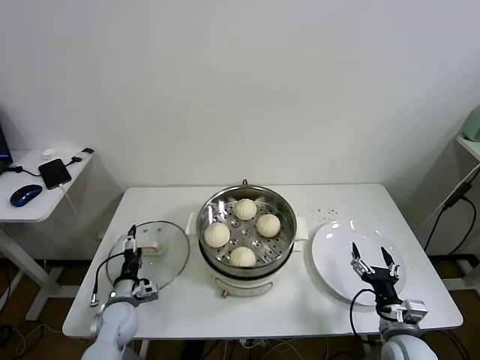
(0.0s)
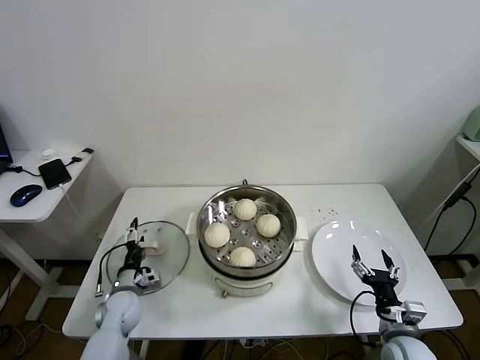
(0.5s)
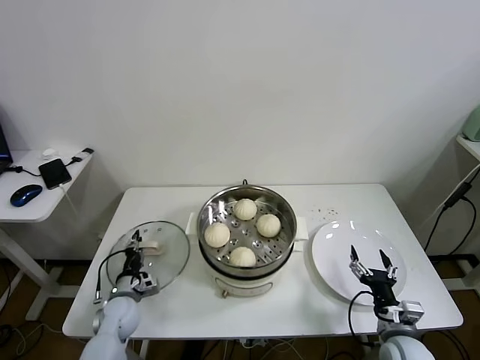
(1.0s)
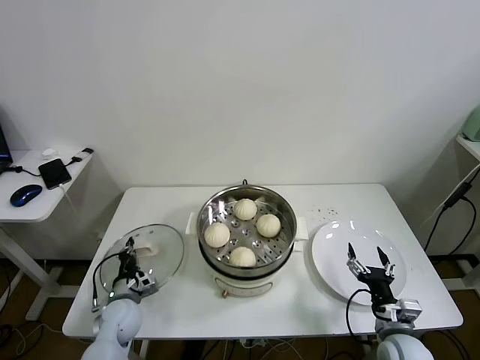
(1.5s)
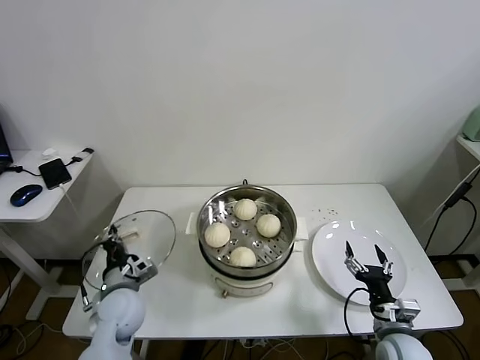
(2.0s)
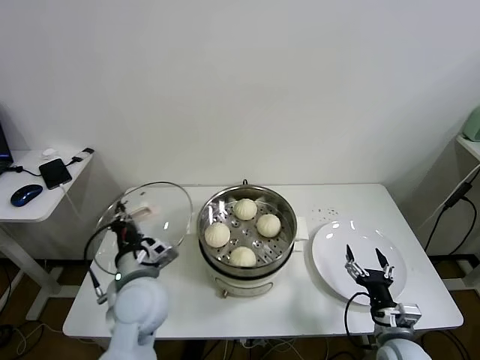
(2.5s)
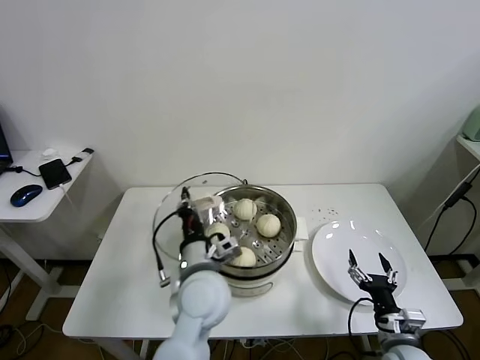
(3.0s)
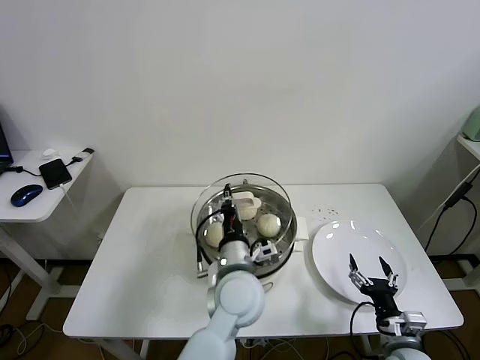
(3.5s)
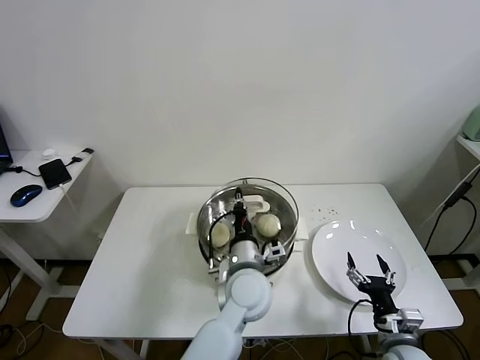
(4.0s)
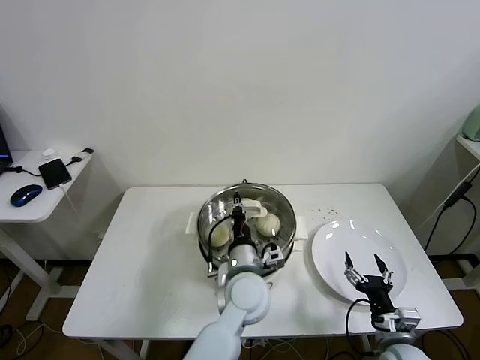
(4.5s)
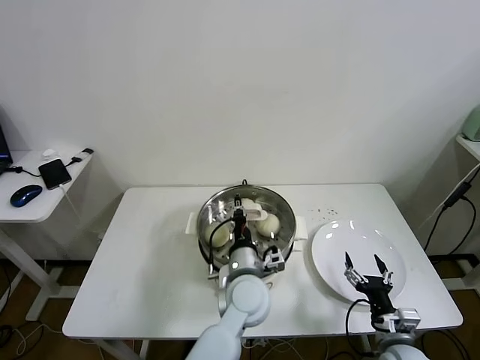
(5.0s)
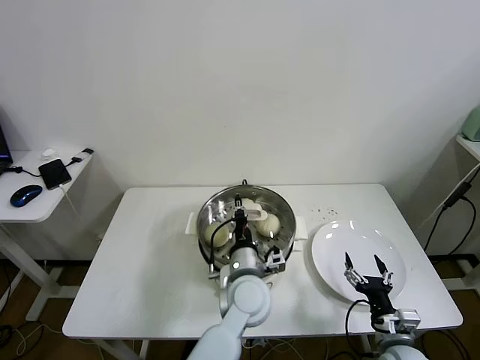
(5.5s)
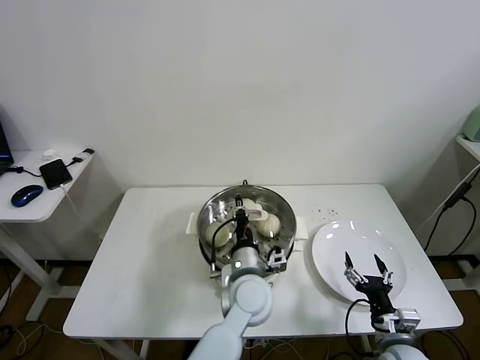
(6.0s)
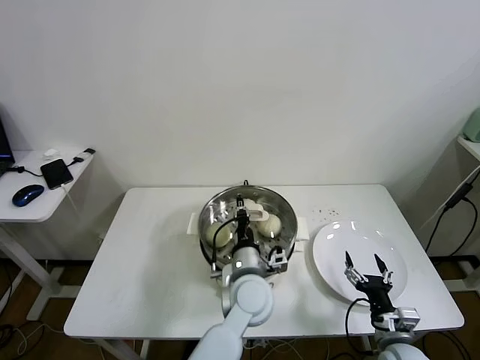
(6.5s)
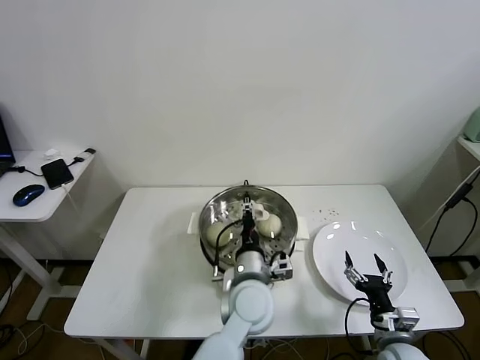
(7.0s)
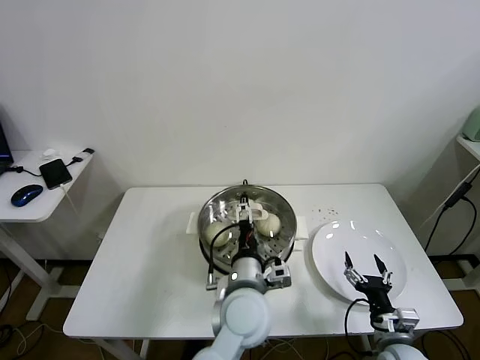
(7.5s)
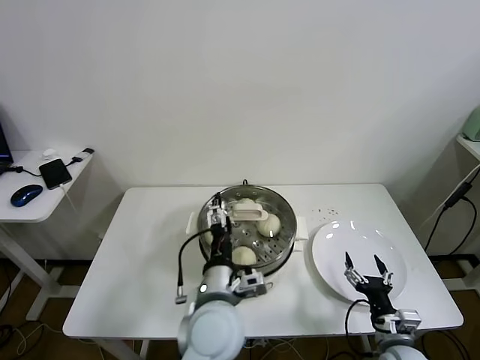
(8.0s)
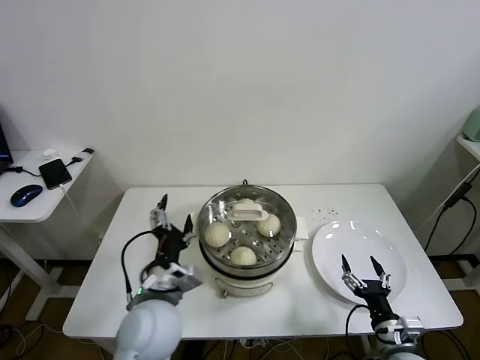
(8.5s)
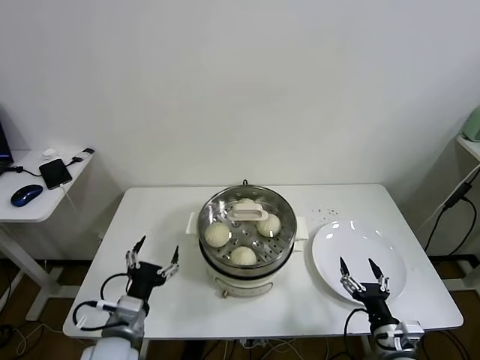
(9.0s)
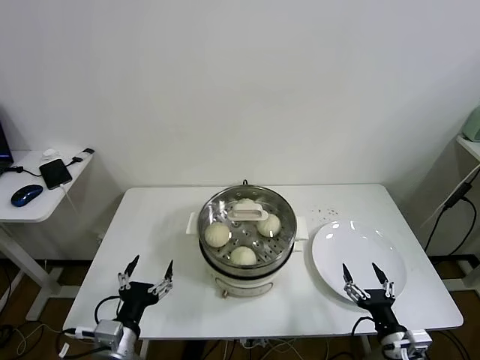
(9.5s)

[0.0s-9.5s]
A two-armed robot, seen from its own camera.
Task of the whole recording: take steamed baozi put them in steamer.
Step, 1.5s to 6.5s: Place the pot lid on the steamer with left gripper.
0.0s to 2.0s: The left gripper heads upward, covering roughly 10 cm, and closes up.
2.0s to 4.0s: The left gripper travels to the right by approximately 30 cm.
4.0s to 5.5s: The grippers make only small movements.
5.5s to 7.5s: The left gripper shifts by some 5 cm, and opens up.
7.5s to 9.5s: The left gripper travels to the left and backward by roughly 30 cm.
